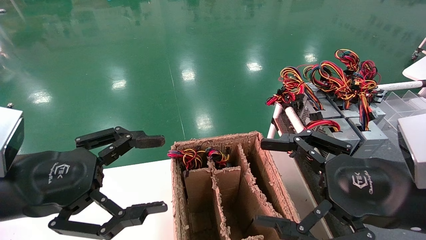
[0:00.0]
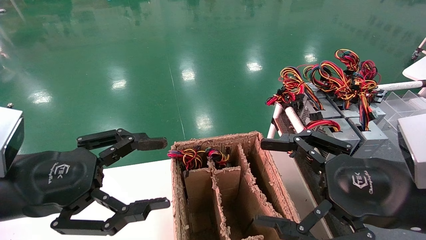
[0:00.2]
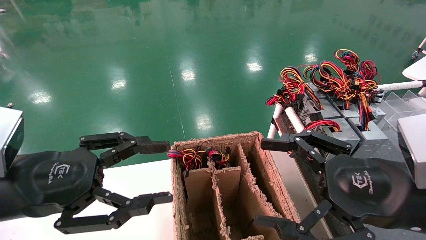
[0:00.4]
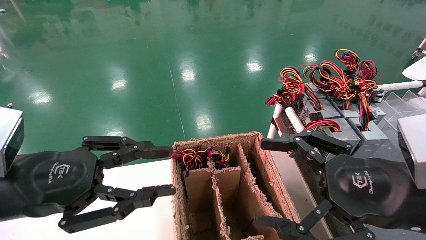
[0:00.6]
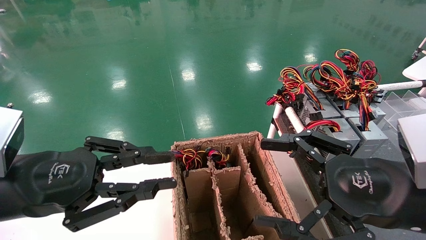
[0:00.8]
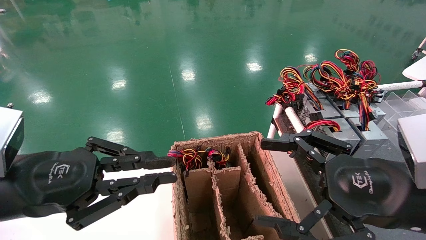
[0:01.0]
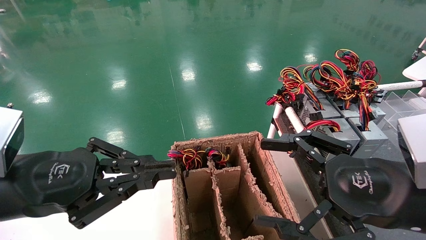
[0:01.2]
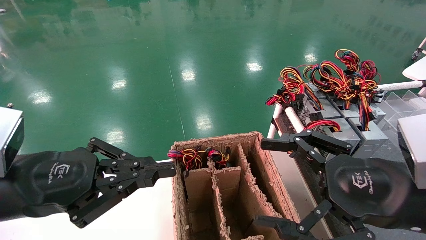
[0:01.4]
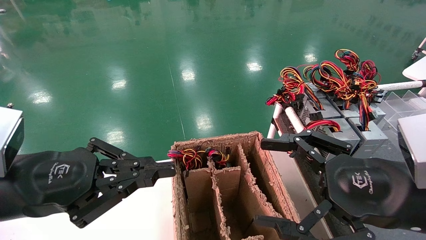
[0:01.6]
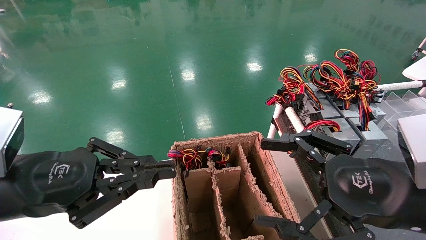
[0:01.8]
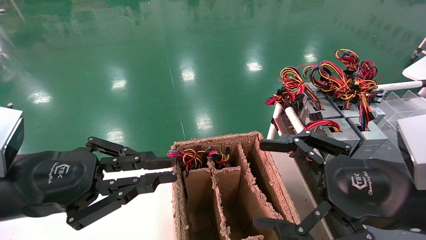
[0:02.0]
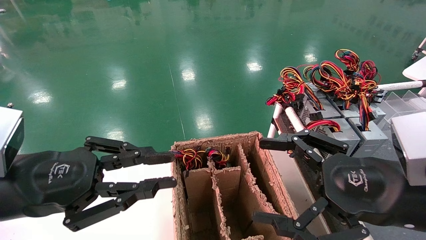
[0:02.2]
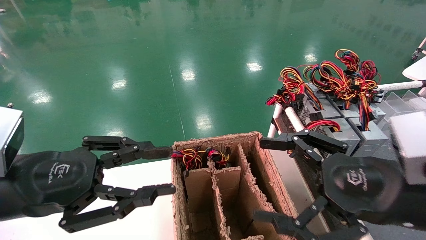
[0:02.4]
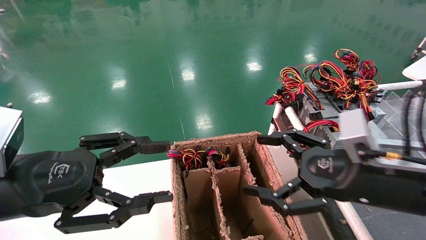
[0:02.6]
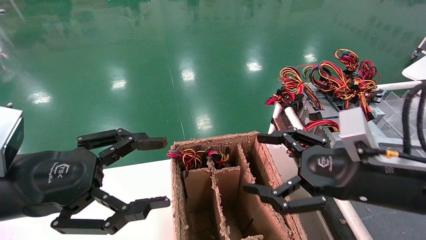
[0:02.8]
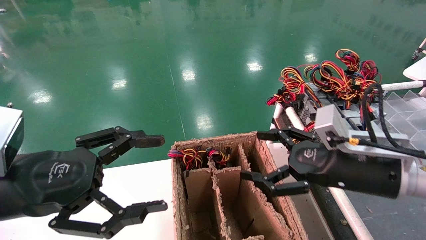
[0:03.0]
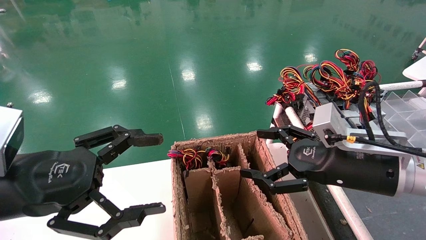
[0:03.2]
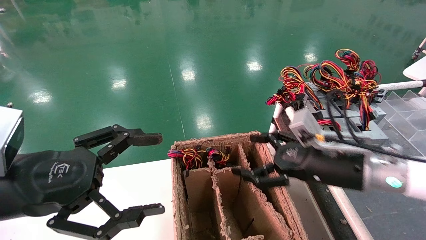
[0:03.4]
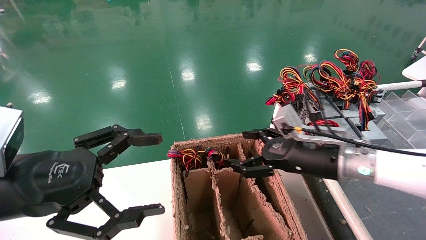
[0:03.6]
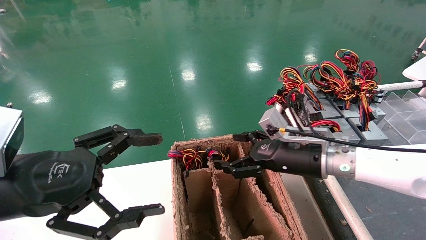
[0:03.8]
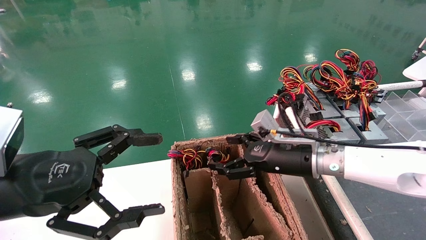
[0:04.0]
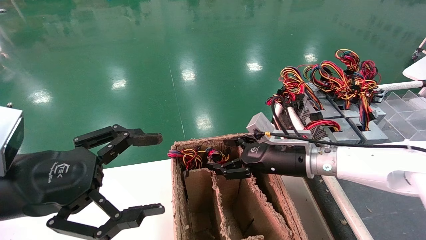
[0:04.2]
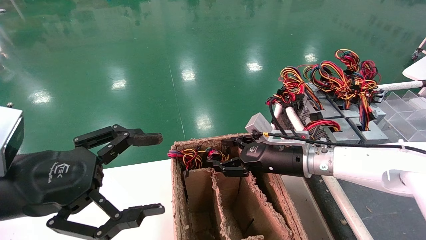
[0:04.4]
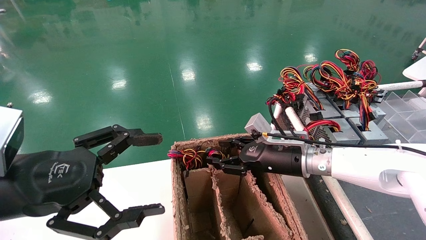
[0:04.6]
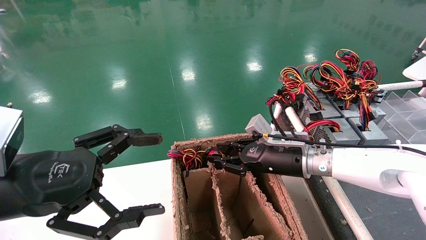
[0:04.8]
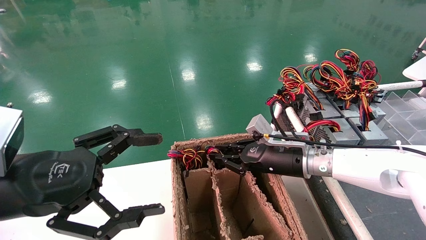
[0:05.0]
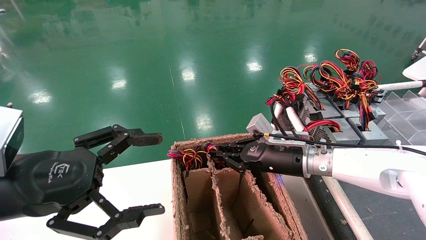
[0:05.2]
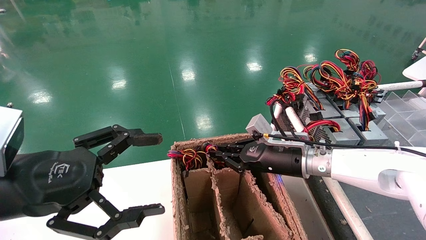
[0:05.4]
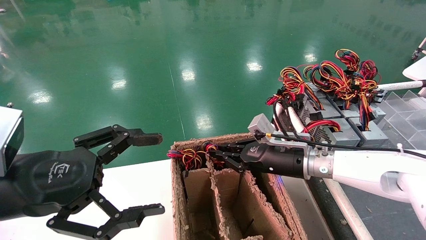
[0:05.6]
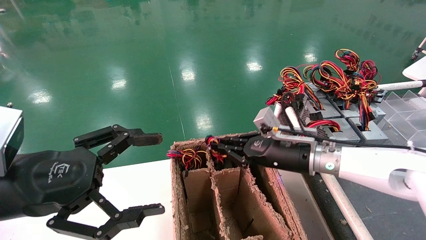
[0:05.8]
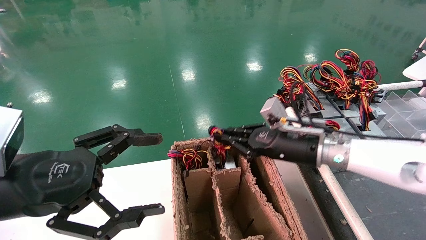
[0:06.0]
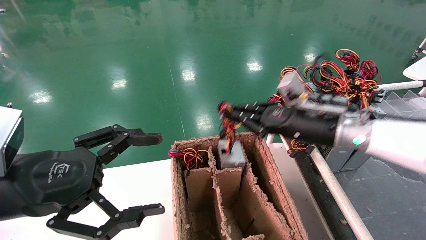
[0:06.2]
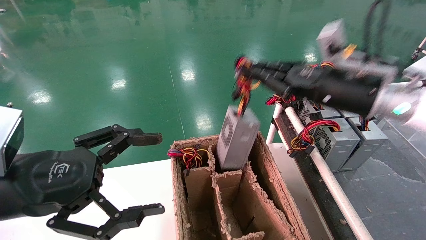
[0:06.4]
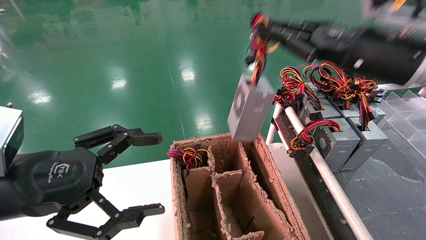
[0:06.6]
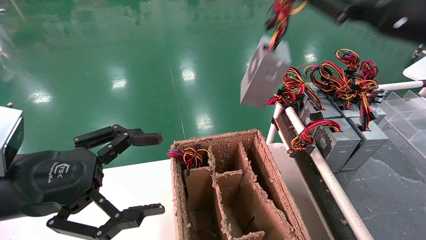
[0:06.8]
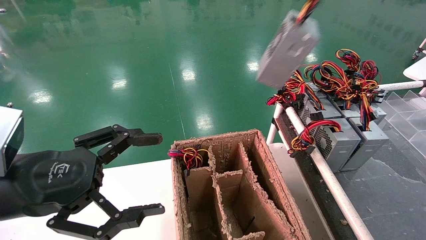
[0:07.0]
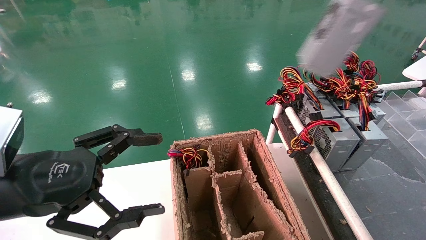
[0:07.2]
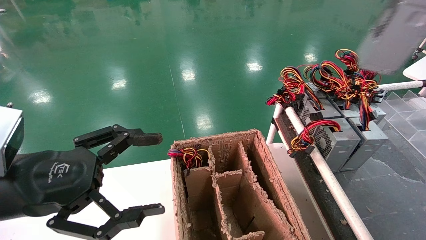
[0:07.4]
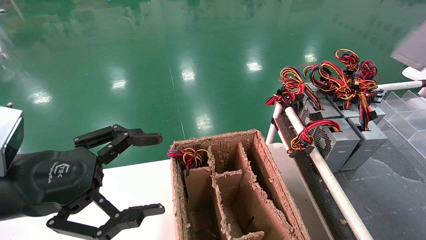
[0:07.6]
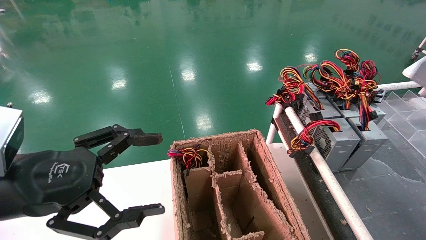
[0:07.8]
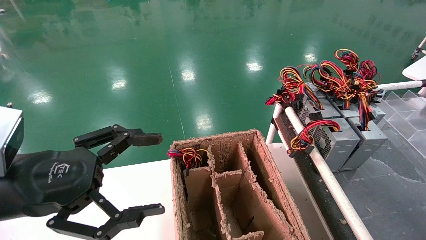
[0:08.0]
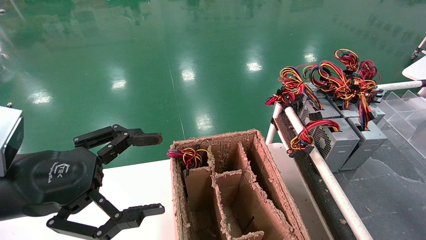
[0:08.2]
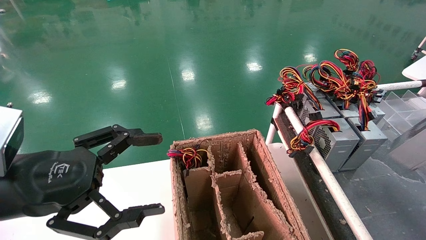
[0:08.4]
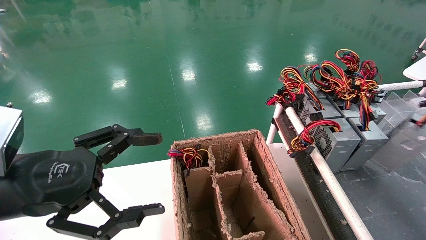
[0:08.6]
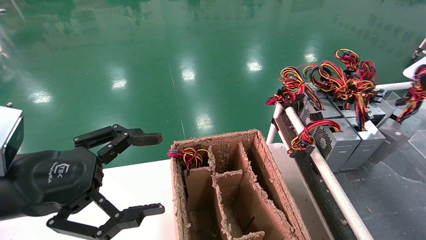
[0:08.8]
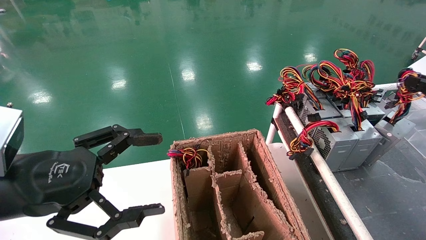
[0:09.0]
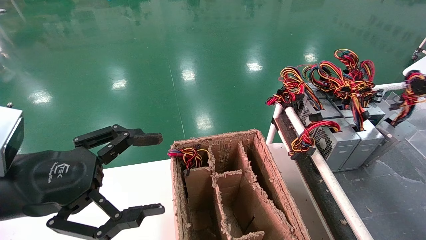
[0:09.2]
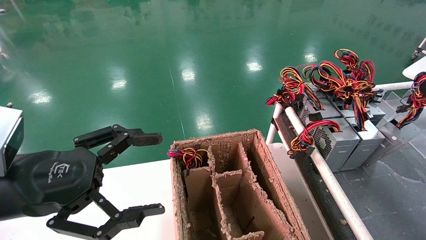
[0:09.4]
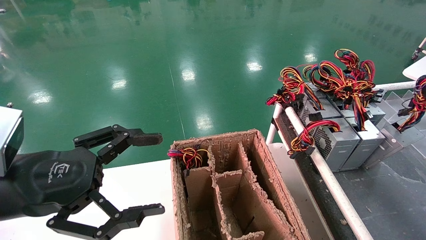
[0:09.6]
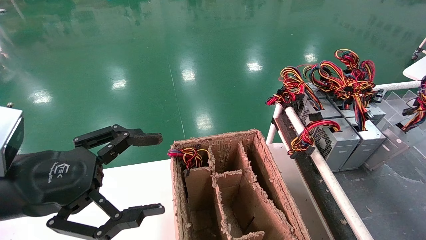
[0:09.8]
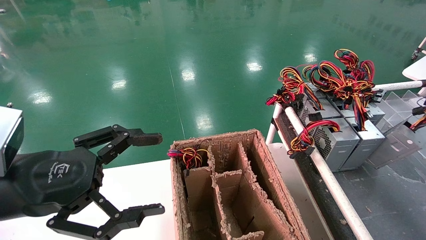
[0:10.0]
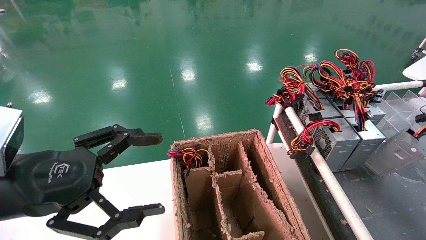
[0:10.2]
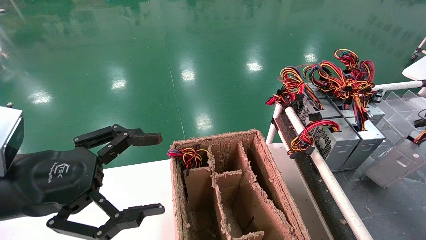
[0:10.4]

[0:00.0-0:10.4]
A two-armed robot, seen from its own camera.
Step, 0:01.4 to 0:05.2: Grab and lift the power supply from the large box.
0:00.0 to 0:01.4: The left gripper closes up.
0:01.4 to 0:03.0: The right gripper is displaced forward by approximately 10 cm. Meanwhile the left gripper opens its fingers.
0:03.0 to 0:04.4: The right gripper is displaced forward and to the left by approximately 15 cm.
0:04.4 to 0:06.0: The right gripper ends up about 5 cm from where it was, and closes its fingers.
0:06.0 to 0:07.4: The right gripper shifts some 40 cm upward, to the right and backward.
0:07.4 to 0:09.0: The right gripper goes approximately 20 cm downward.
0:09.0 to 0:10.4: The right gripper moves approximately 5 cm.

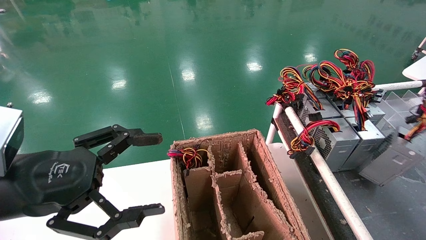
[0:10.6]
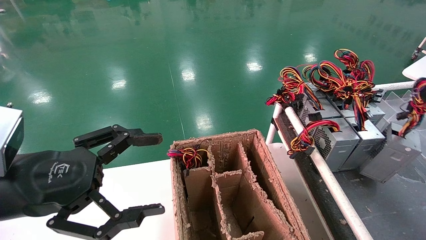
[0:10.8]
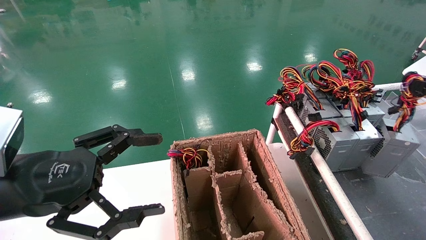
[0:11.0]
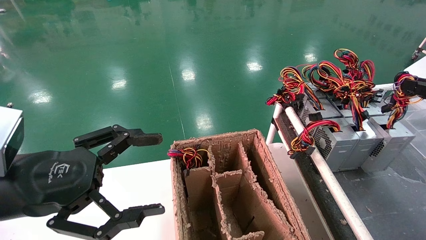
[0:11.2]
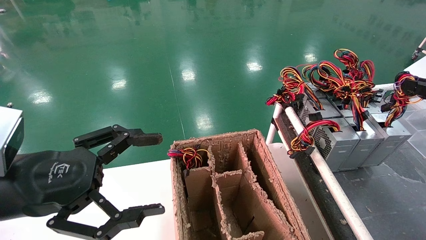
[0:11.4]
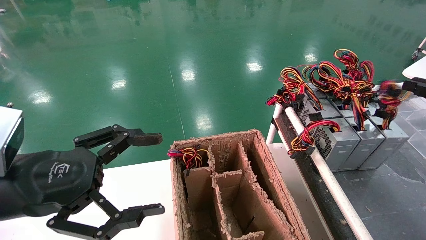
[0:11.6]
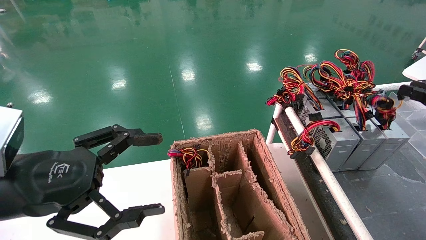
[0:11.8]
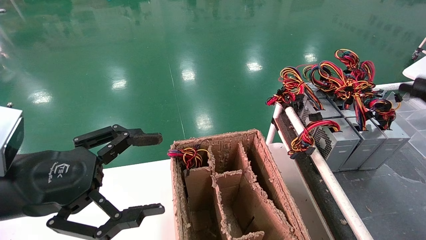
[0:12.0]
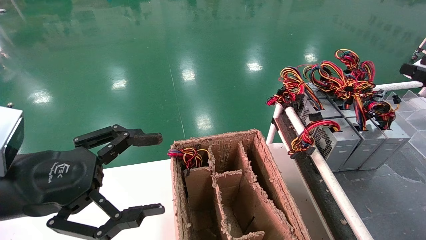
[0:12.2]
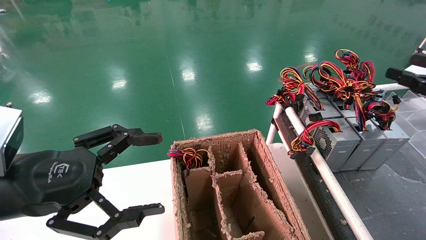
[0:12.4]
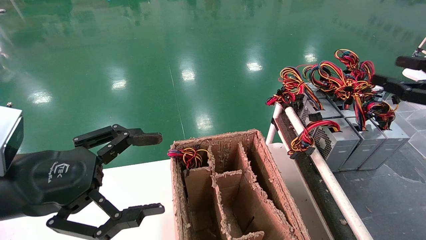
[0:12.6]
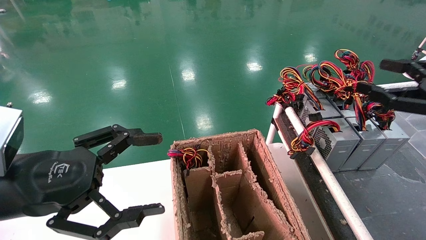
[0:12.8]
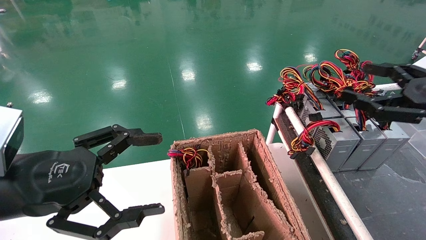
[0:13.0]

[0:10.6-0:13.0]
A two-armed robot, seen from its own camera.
0:10.6 to 0:11.8: The grippers stay close to where they were, moving slightly.
0:11.8 to 0:13.0: The right gripper travels to the left by about 10 cm, and opens.
